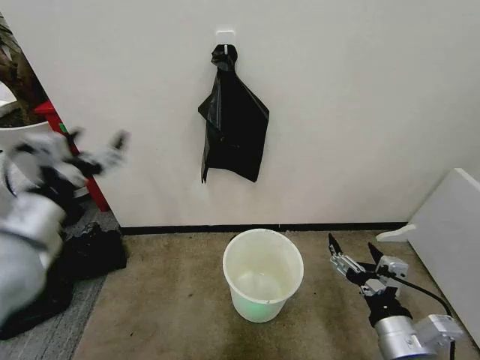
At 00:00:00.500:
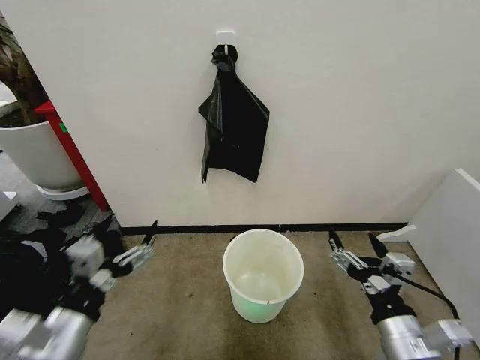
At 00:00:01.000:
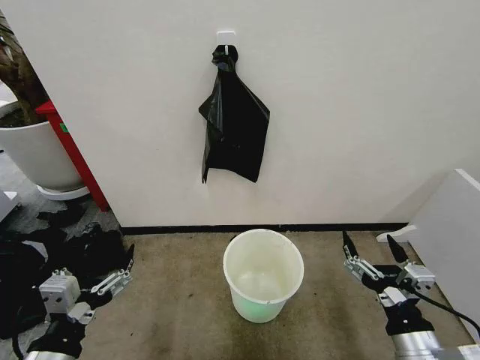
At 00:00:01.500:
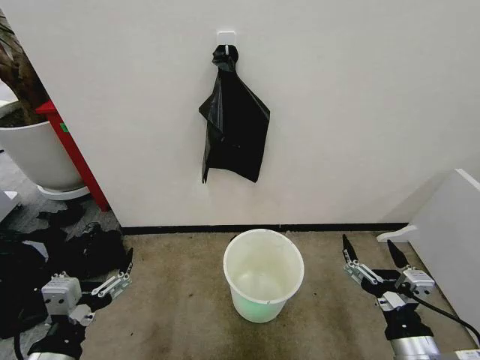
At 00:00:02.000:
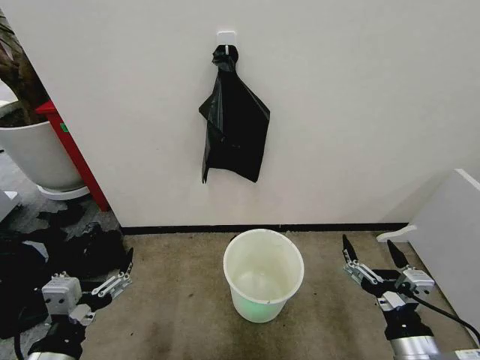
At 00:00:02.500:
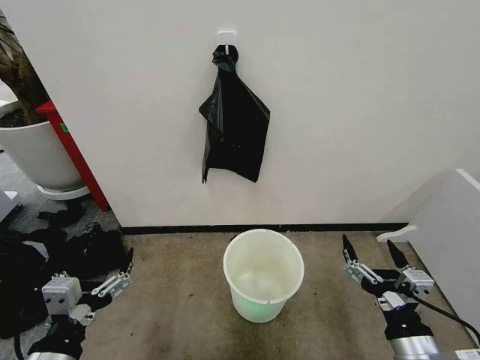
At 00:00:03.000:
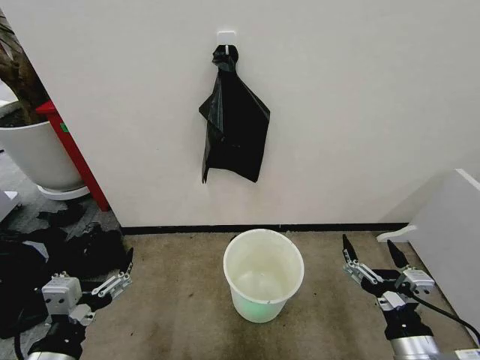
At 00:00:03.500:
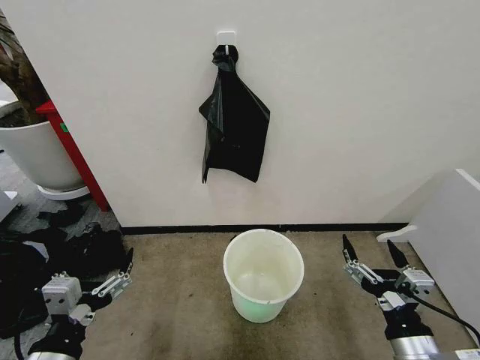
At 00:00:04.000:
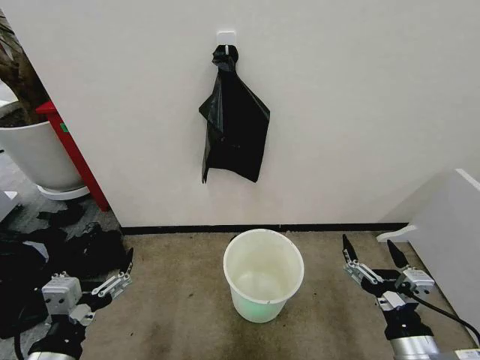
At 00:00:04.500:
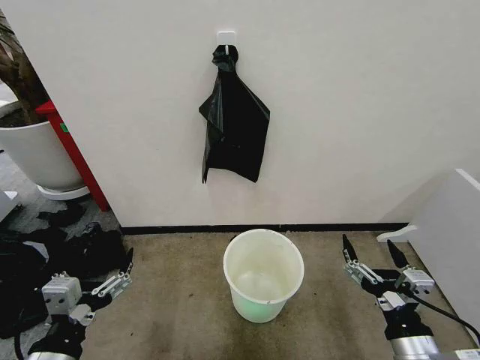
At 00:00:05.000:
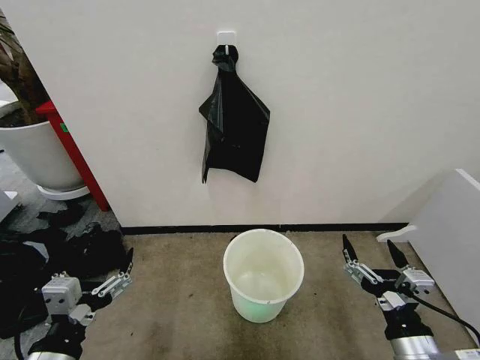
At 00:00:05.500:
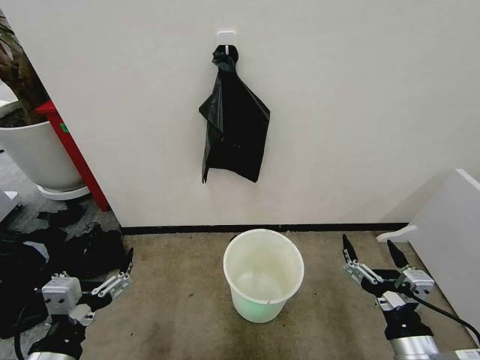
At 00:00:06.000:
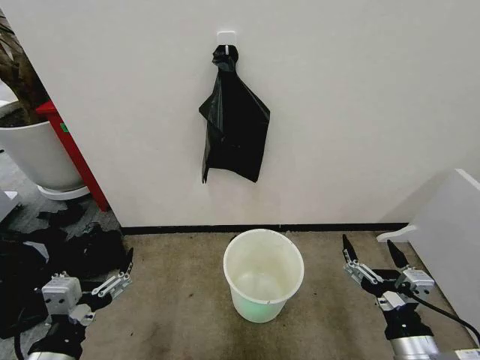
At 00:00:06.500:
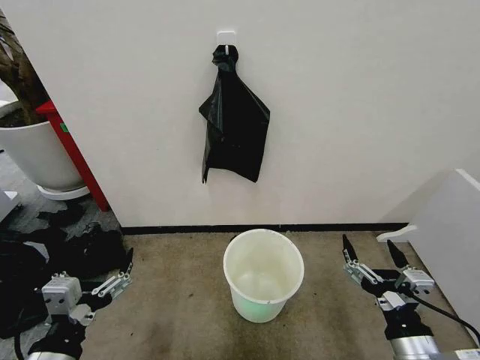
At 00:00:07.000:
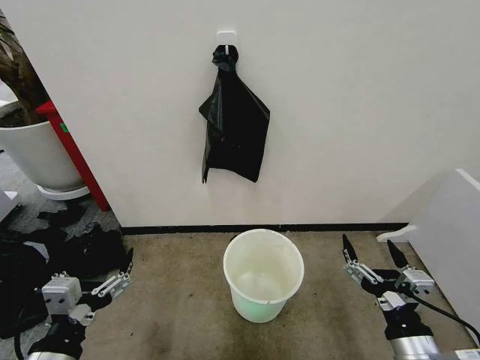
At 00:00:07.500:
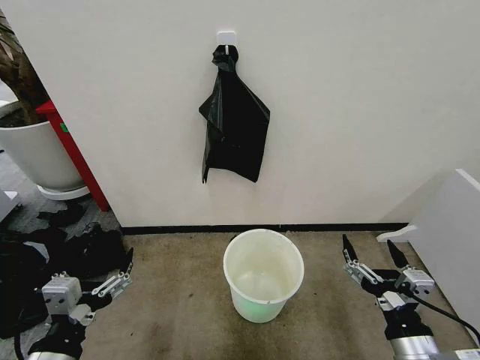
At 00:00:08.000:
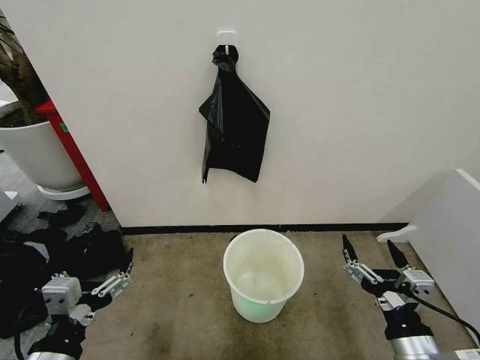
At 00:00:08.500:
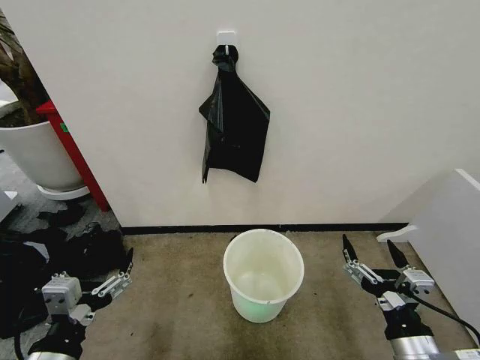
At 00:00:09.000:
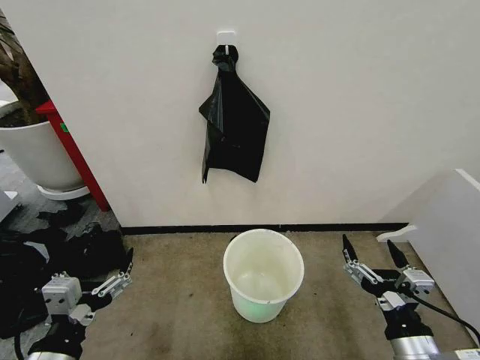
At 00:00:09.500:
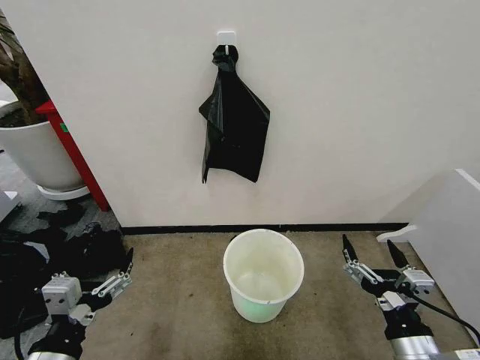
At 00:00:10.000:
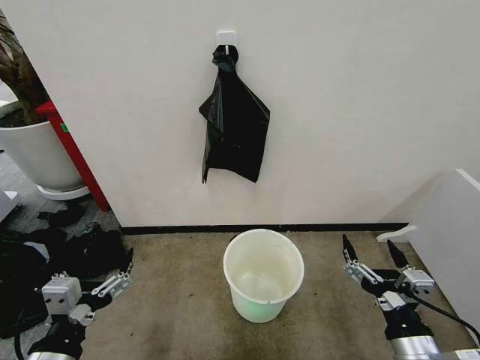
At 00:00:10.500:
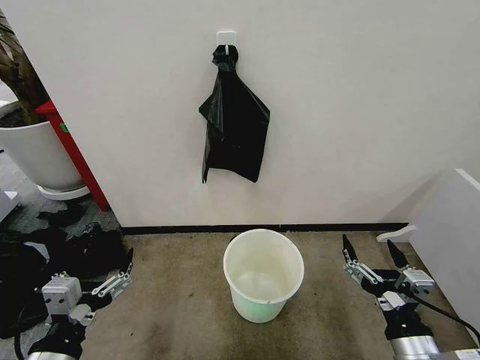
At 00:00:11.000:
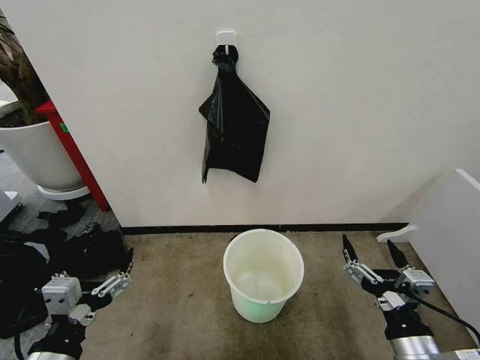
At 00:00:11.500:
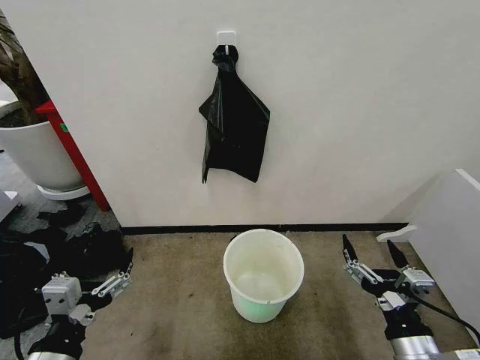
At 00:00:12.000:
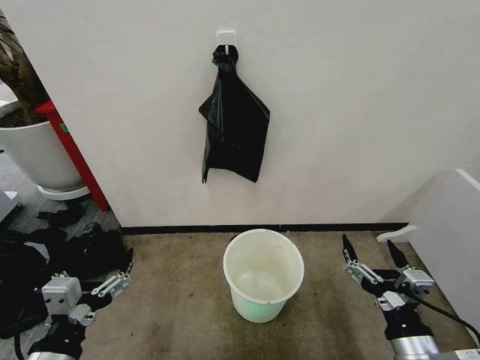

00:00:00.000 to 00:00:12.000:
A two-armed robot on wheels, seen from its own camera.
Task of the whole recording: Place the garbage bag over the trash bin.
00:00:00.000 to 00:00:02.000: The left gripper travels backward and downward by about 20 cm.
00:00:02.000 to 00:00:12.000: Neither gripper changes place.
